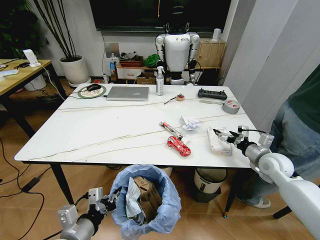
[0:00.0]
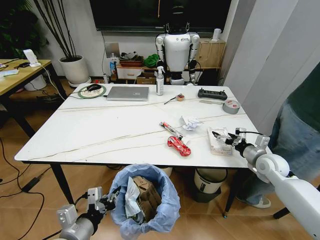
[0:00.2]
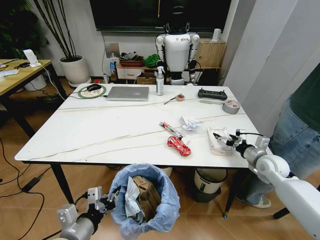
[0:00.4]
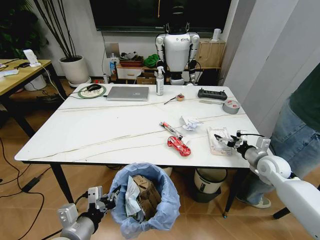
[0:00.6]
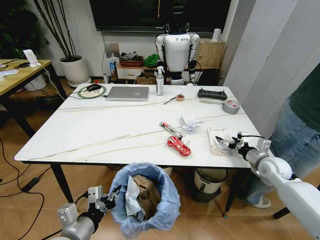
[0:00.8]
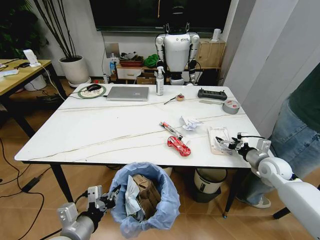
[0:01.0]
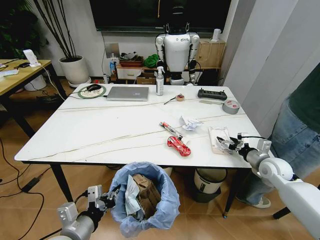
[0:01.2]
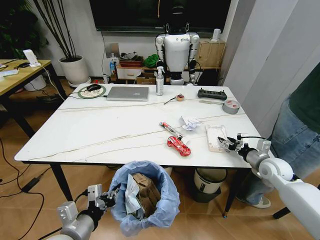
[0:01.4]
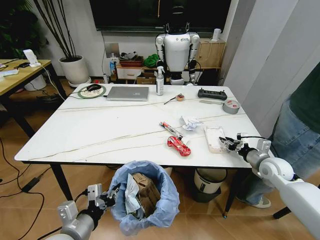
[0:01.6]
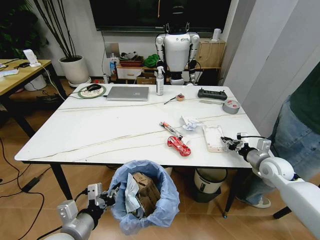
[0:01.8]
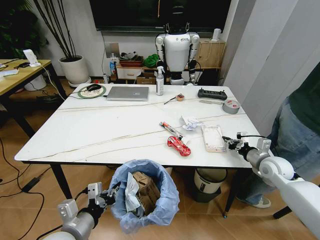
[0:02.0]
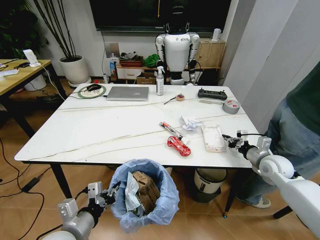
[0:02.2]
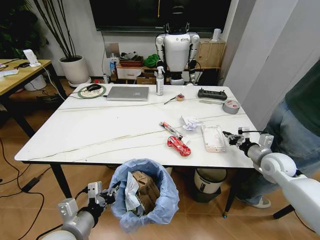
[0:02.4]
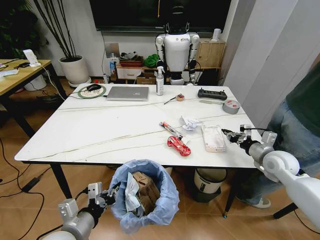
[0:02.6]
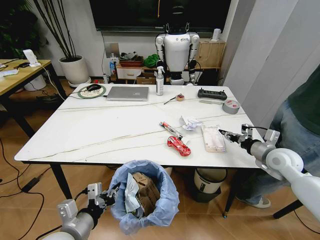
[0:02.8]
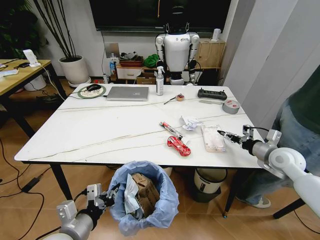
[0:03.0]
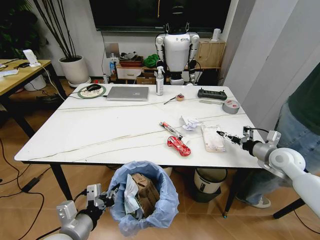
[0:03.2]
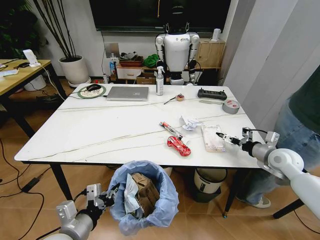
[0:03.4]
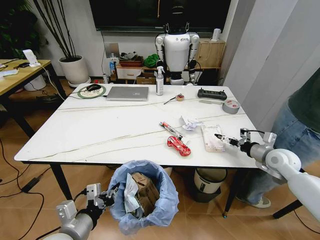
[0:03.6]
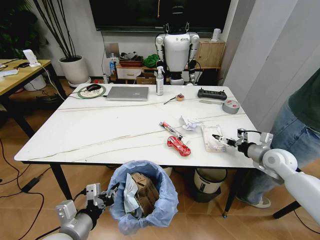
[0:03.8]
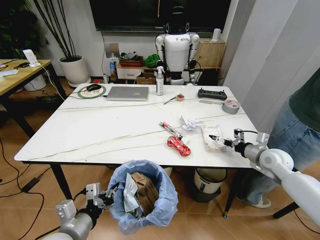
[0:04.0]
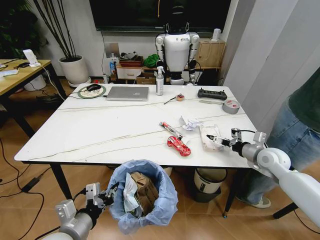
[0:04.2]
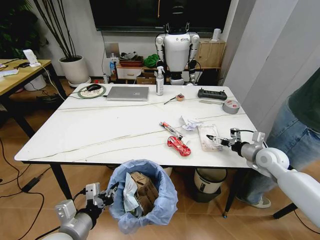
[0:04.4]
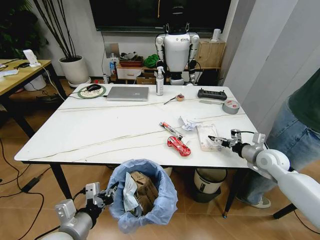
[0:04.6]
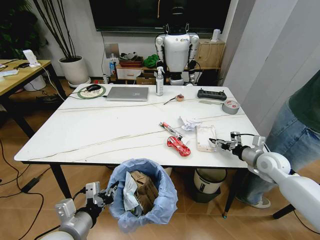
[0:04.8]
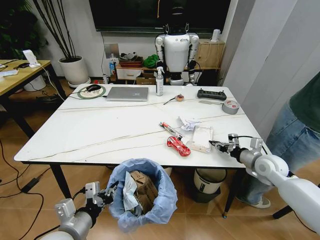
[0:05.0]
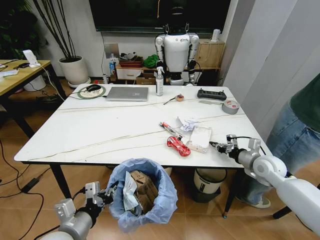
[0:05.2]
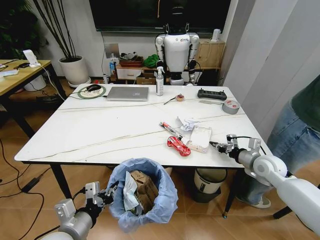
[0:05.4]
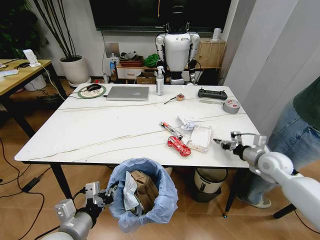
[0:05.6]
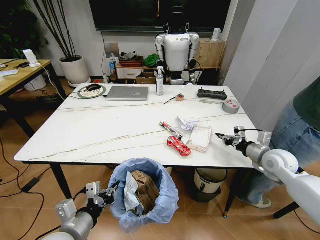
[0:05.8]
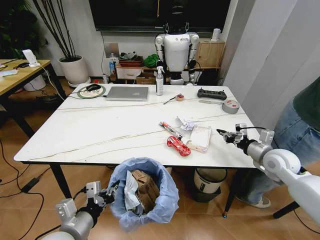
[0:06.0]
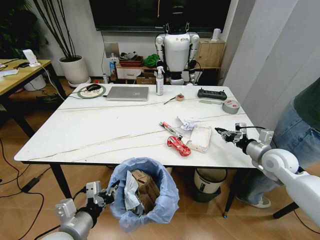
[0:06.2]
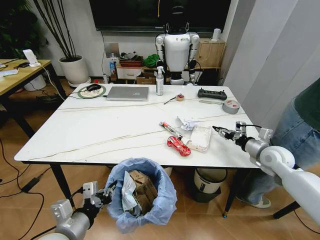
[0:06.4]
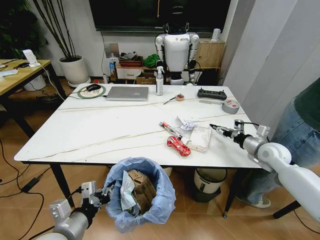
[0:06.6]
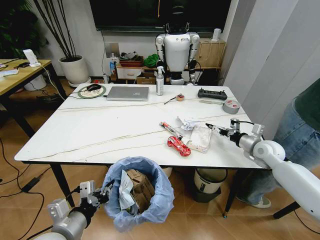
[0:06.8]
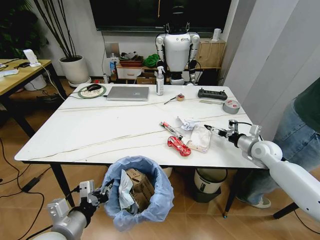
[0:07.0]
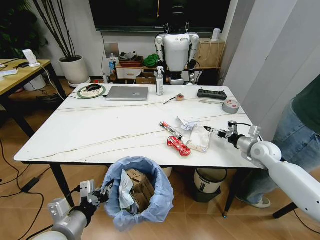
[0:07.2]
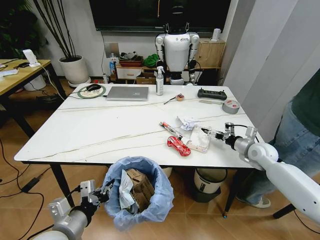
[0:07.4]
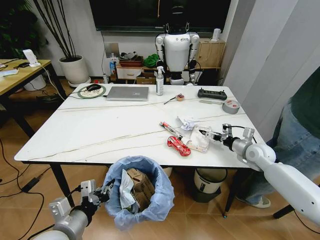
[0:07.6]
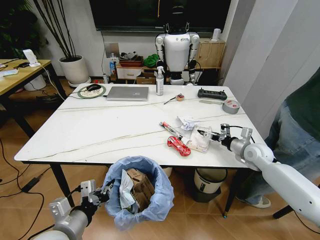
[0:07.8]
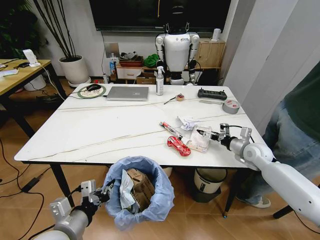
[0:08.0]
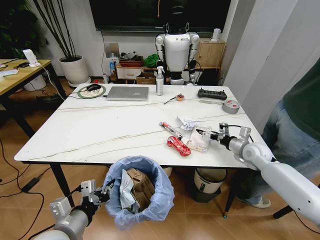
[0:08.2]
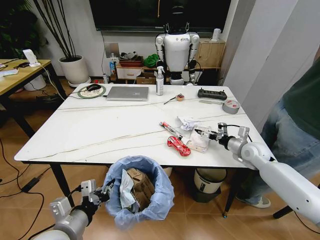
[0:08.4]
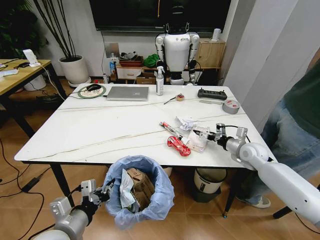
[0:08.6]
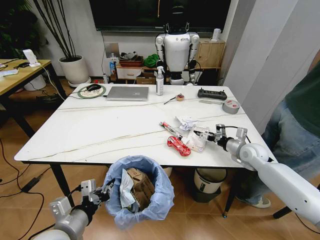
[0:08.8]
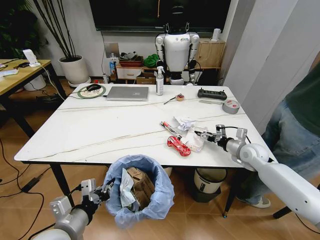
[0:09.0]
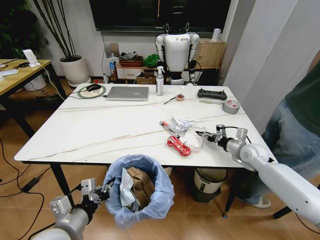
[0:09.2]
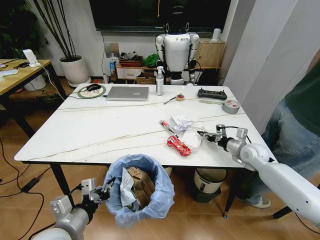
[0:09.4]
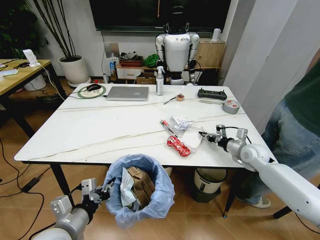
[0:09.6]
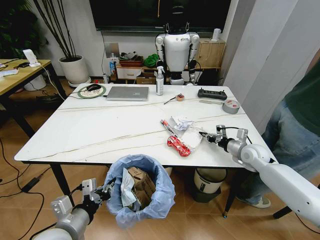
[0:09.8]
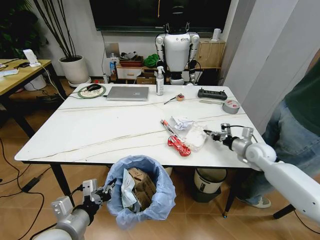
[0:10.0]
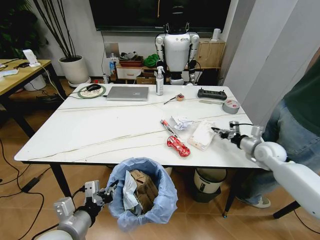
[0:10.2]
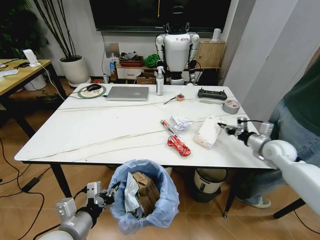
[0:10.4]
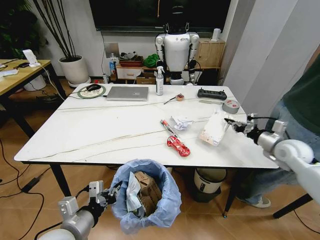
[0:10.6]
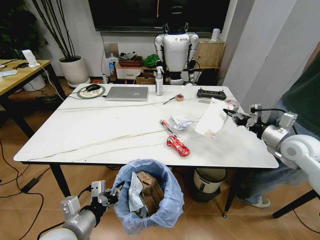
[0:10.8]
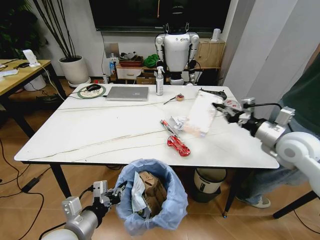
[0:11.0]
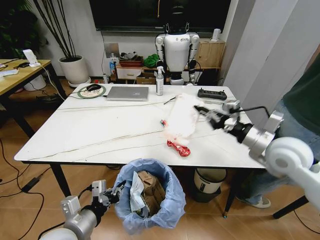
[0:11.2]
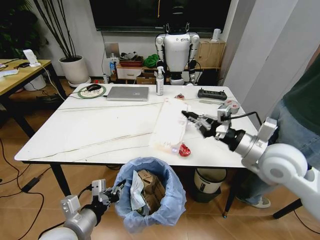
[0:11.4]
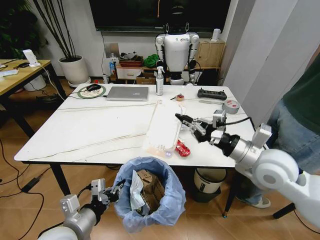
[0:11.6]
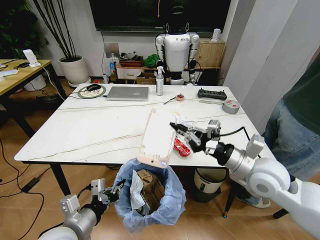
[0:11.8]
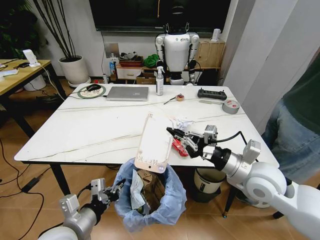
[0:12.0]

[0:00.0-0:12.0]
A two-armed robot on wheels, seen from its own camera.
Task of the whole recording: Pick up the trash bin and place the trash from the table into it.
0:00.0 to 0:01.6: The right gripper closes up.
0:01.6 to 0:03.0: The right gripper moves upward, about 5 cm, and closes and opens again.
0:03.0 to 0:04.4: The grippers move only a little.
0:04.4 to 0:06.0: The right gripper closes up.
0:06.0 to 0:07.6: The right gripper shifts roughly 10 cm forward and downward, and opens up.
0:07.6 to 0:09.0: The grippers move only a little.
0:09.0 to 0:10.4: The right gripper is displaced to the right by roughly 5 cm, and closes up.
0:10.4 to 0:12.0: The right gripper goes approximately 25 cm to the left, backward and upward.

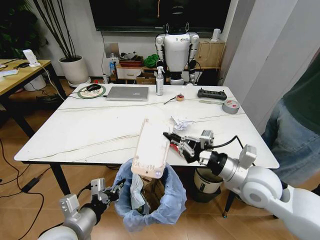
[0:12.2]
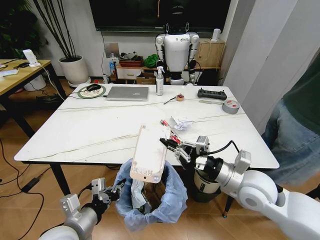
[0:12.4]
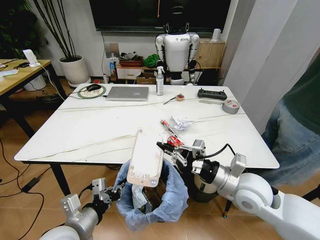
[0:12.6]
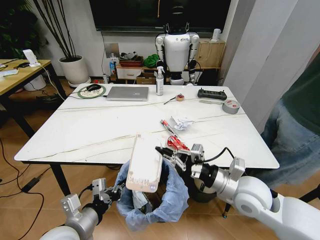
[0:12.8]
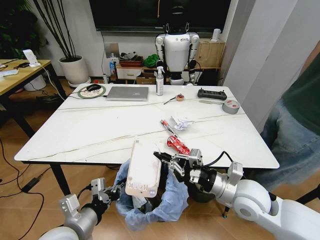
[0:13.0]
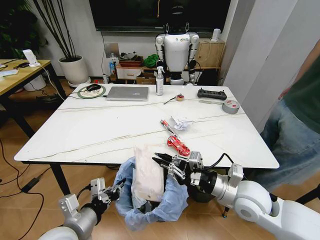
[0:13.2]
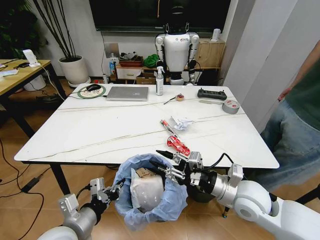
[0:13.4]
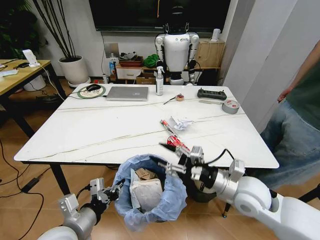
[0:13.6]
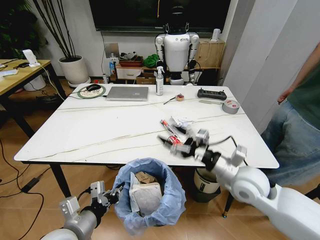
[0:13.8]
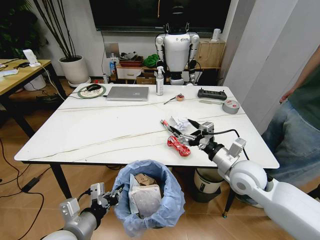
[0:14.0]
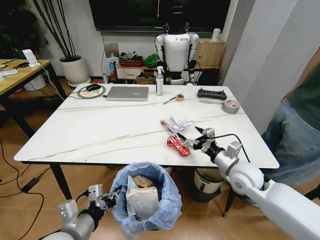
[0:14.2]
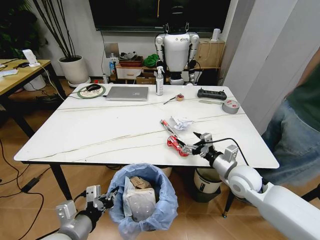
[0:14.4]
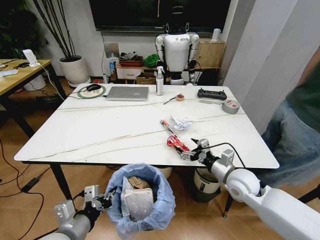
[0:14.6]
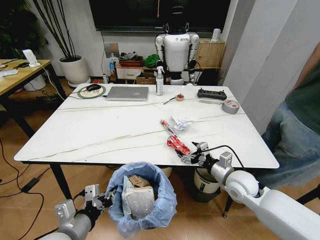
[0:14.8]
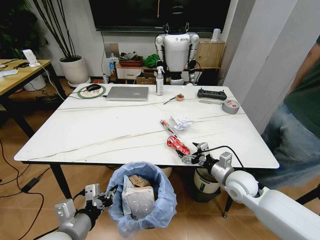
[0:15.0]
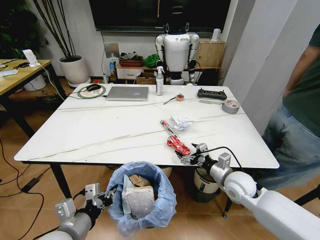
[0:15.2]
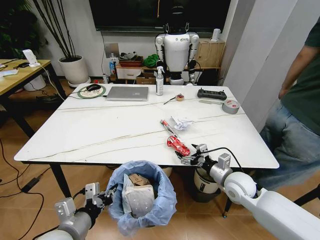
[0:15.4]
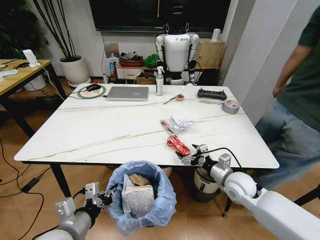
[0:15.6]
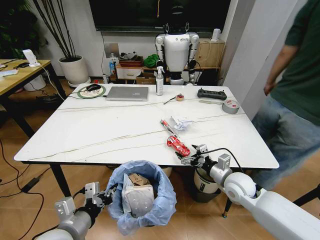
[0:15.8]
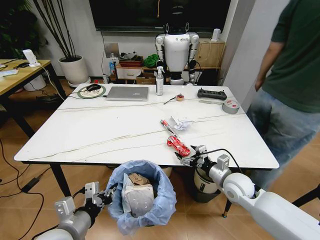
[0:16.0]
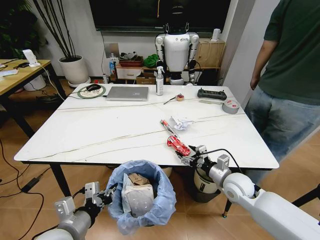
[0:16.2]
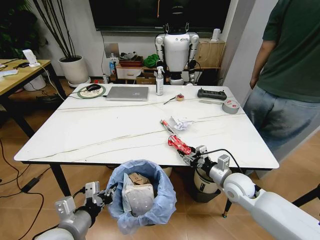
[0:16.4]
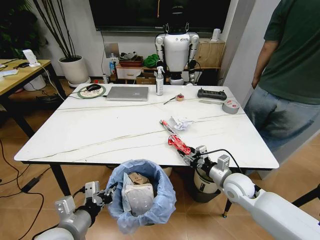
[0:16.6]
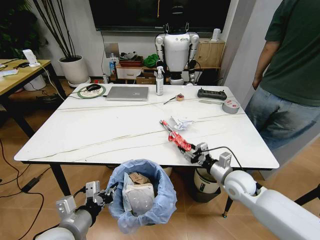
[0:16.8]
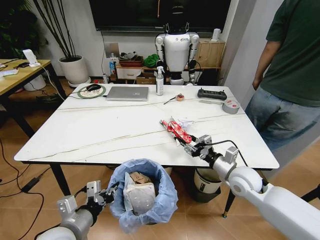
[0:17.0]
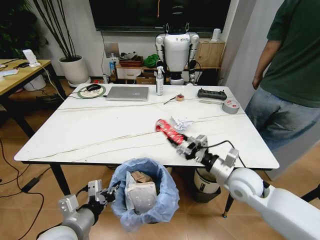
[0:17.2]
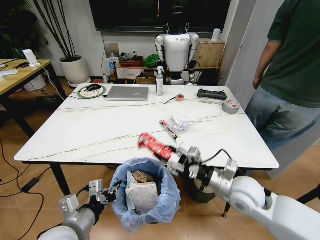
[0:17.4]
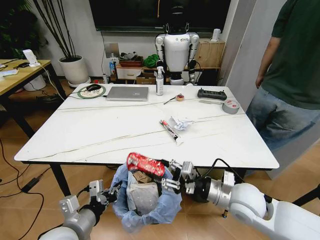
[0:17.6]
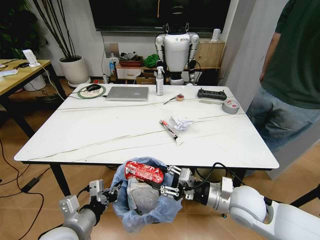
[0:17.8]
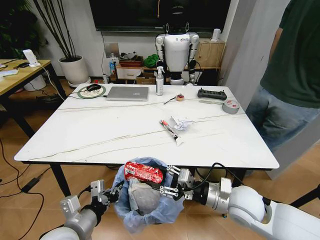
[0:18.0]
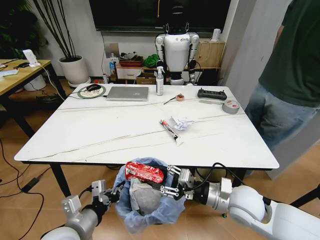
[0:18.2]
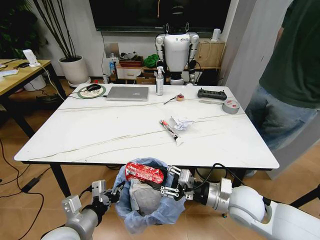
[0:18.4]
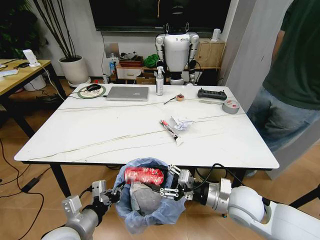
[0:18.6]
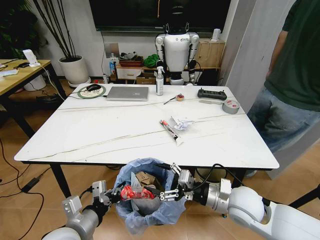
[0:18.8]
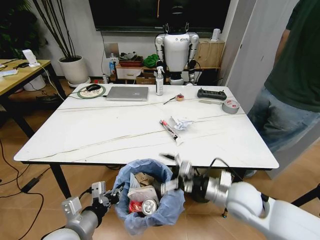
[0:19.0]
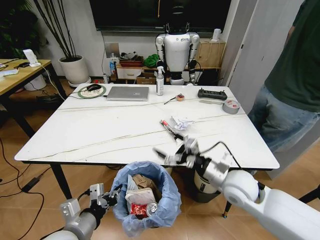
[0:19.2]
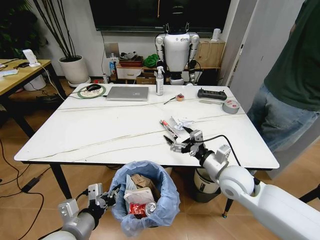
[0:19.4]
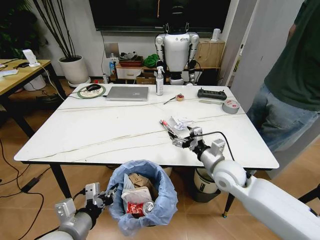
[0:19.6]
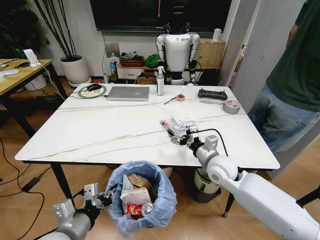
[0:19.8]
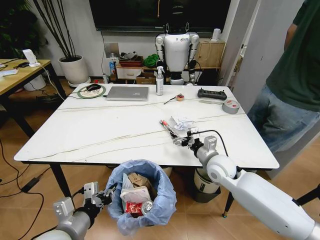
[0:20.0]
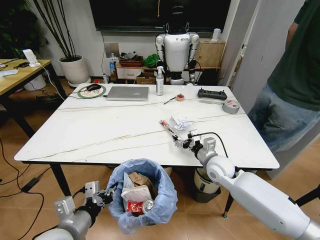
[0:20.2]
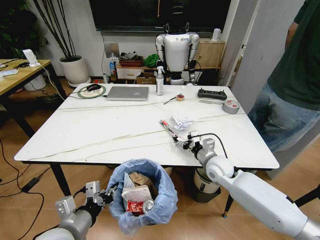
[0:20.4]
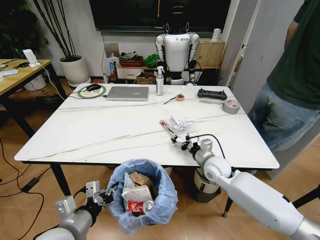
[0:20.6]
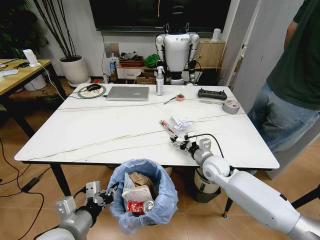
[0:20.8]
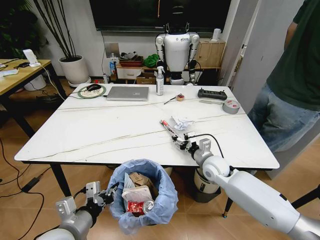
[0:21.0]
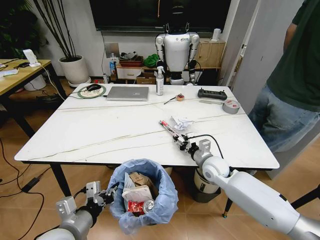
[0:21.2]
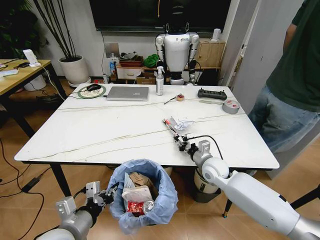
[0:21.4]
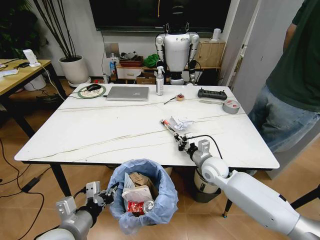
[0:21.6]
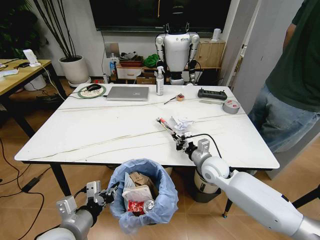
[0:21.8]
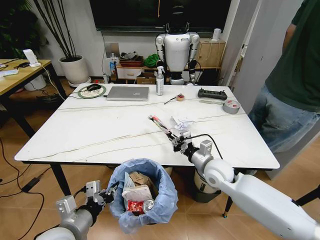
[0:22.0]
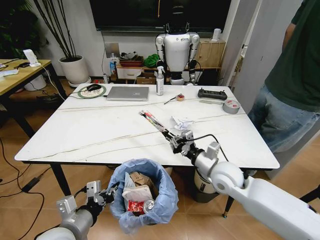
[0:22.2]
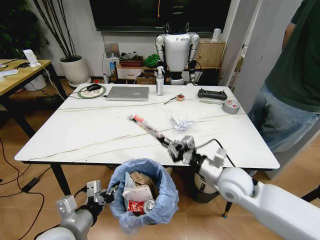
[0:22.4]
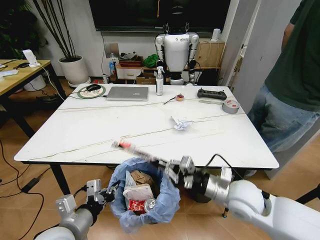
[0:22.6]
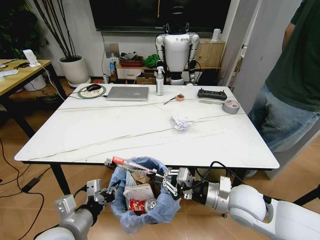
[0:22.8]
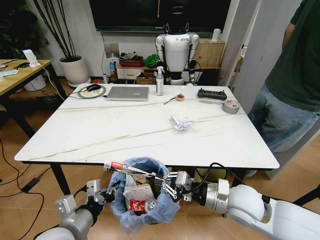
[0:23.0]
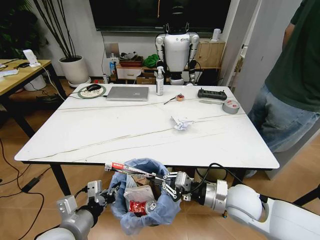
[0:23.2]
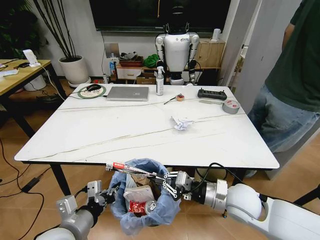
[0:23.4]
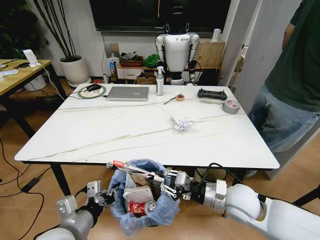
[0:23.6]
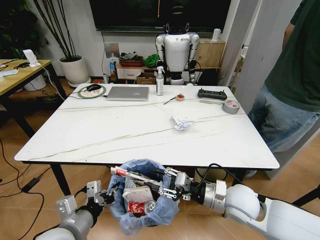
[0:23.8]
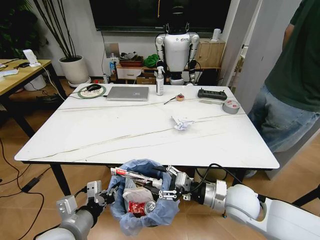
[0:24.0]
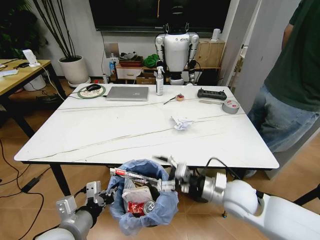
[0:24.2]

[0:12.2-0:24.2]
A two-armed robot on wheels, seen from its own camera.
Task of the whole recording: Pick up the trash bin and place the trash from the table into it.
0:12.2 to 0:13.8: The right gripper opens up.
0:13.8 to 0:15.2: The right gripper is displaced downward by roughly 10 cm.
0:15.2 to 0:16.6: The right gripper closes its fingers.
0:16.6 to 0:18.2: The right gripper shifts some 10 cm backward and upward.
0:18.2 to 0:19.8: The right gripper is displaced forward by roughly 10 cm, and opens.
0:19.8 to 0:21.2: The right gripper heads downward, covering some 5 cm, and closes its fingers.
0:21.2 to 0:22.6: The right gripper heads backward and upward, covering approximately 15 cm, and closes up.
0:22.6 to 0:24.2: The right gripper opens up.
